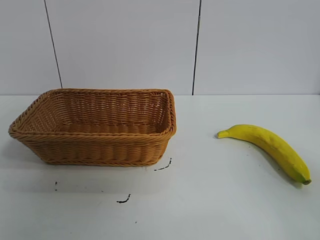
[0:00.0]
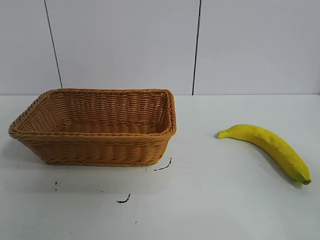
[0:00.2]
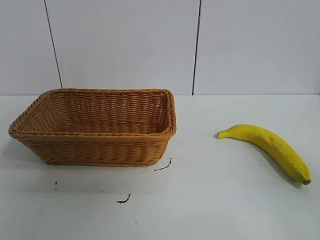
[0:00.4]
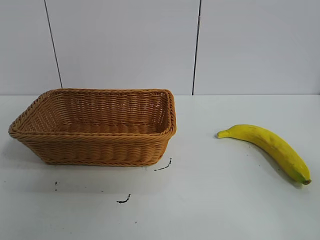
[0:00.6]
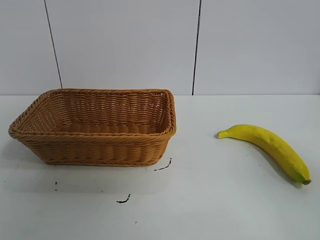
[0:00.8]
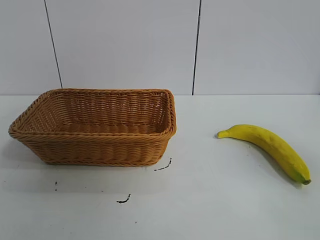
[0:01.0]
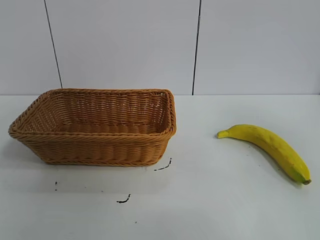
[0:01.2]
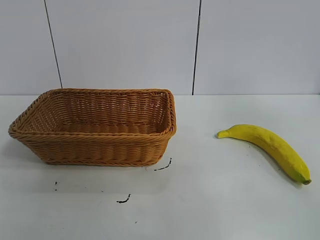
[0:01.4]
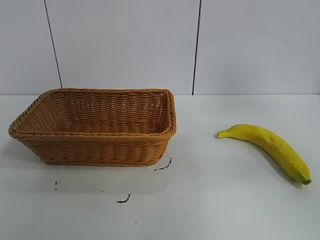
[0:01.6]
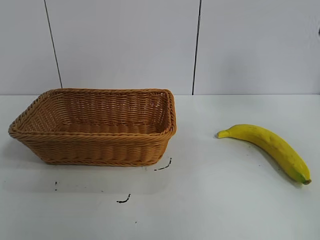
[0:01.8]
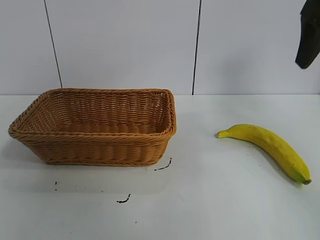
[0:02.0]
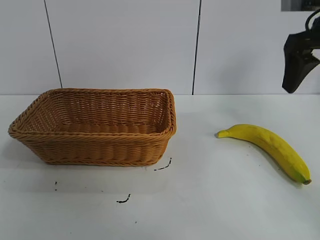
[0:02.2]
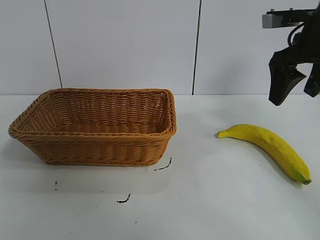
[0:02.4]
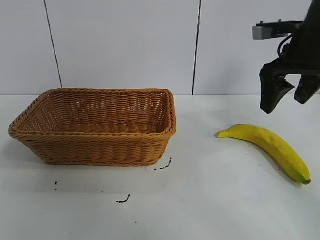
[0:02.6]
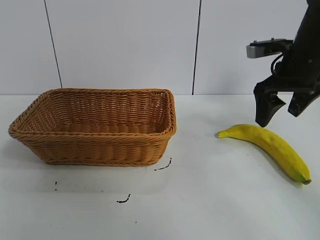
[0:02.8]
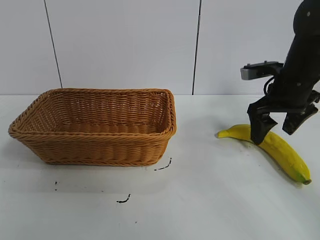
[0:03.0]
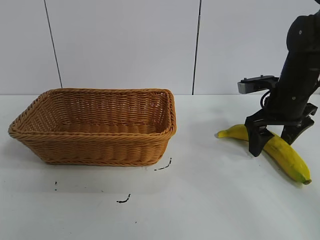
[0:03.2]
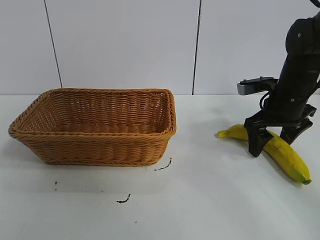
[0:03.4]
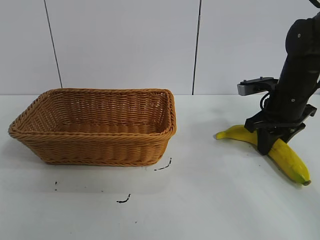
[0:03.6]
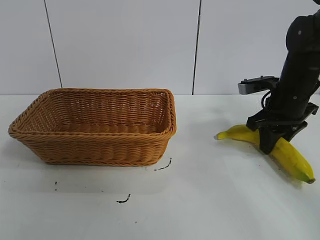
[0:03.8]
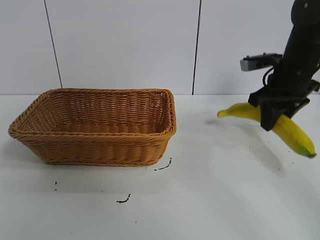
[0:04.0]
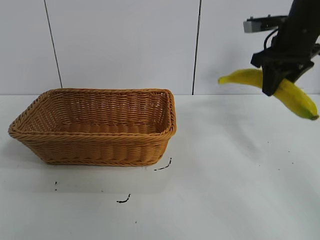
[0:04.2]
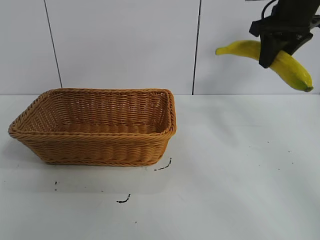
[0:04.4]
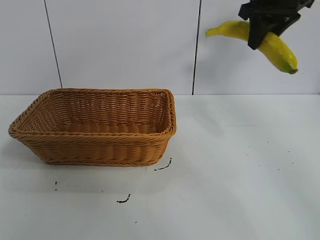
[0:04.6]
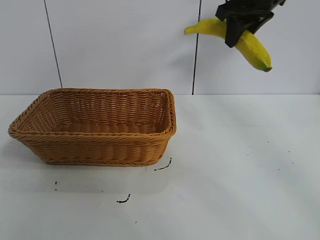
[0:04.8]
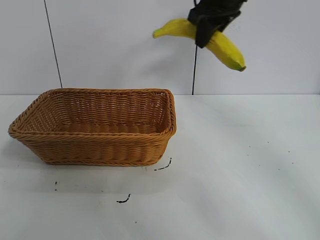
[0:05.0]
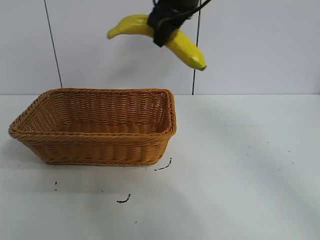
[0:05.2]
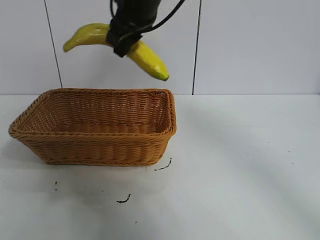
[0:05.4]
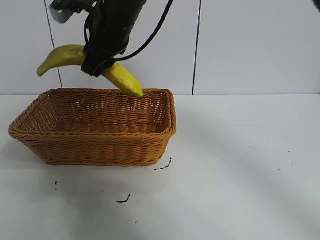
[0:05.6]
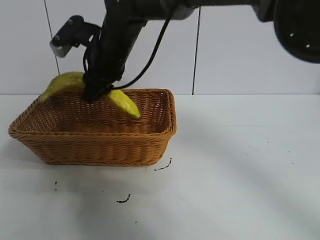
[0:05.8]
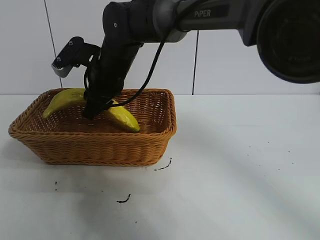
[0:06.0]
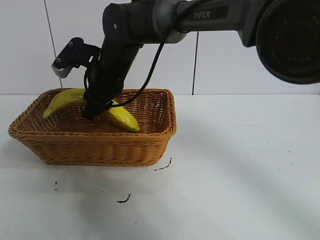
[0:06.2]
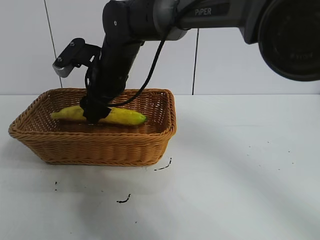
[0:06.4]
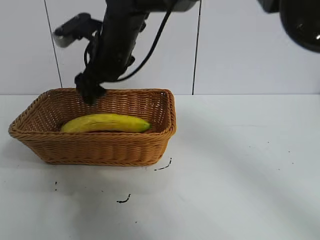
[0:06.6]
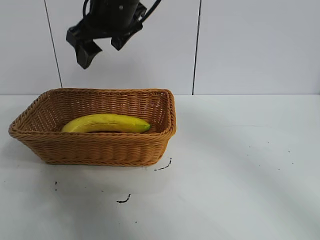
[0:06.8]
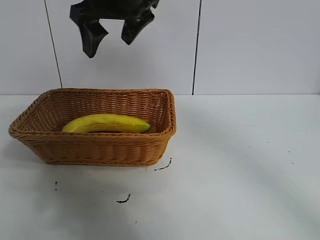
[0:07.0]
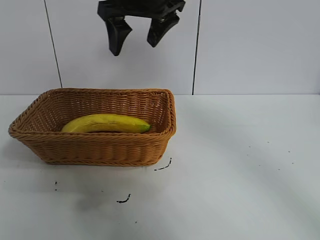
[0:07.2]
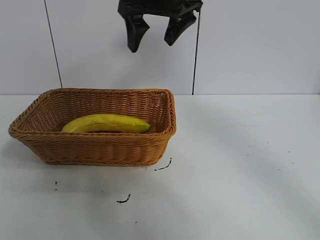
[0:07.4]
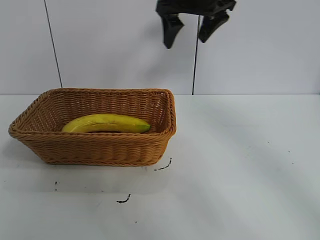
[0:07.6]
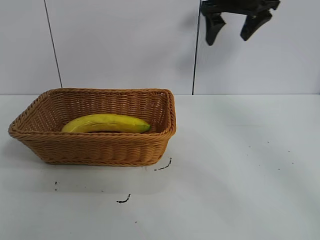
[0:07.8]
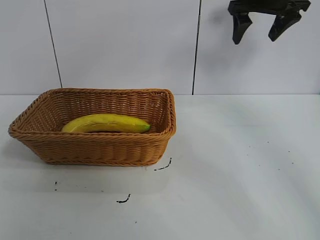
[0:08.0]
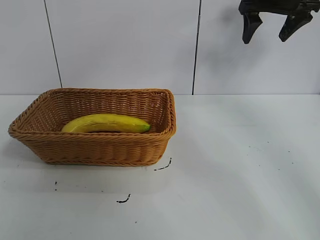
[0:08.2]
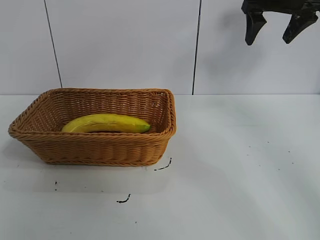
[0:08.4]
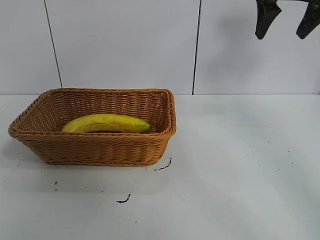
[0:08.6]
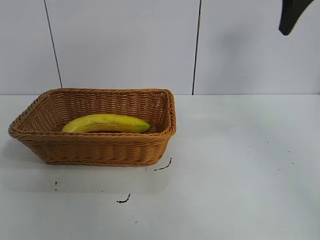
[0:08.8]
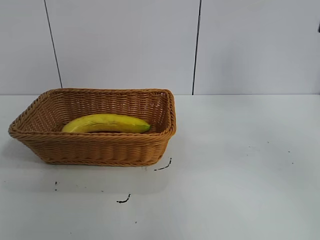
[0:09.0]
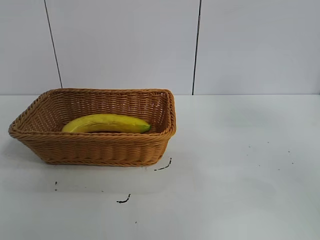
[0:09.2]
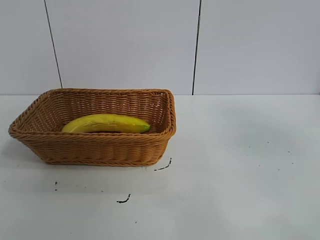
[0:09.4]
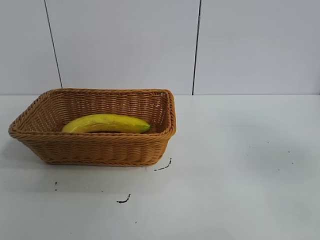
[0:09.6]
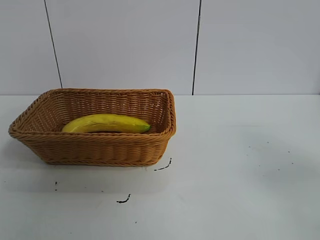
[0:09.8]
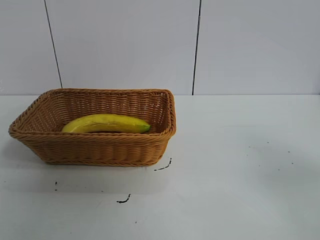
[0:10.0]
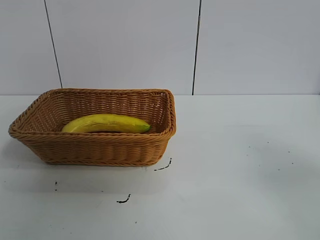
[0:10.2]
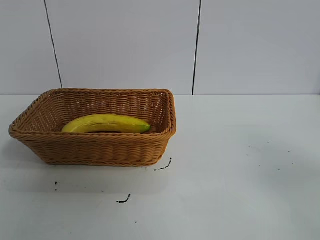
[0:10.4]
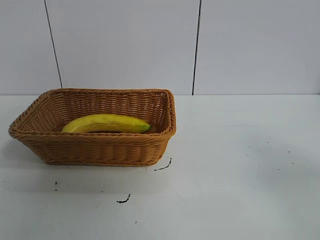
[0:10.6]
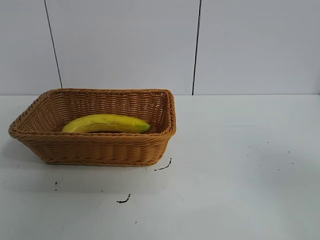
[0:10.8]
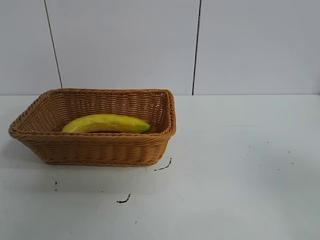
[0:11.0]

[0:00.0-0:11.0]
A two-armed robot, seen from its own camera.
Task of the whole recording: pick up the banana and put it into the basket.
Step, 0:00.8 to 0:03.6: Grasp the banana with right gripper.
Step, 0:03.8 to 0:06.4: Place the banana in the basket with right gripper.
